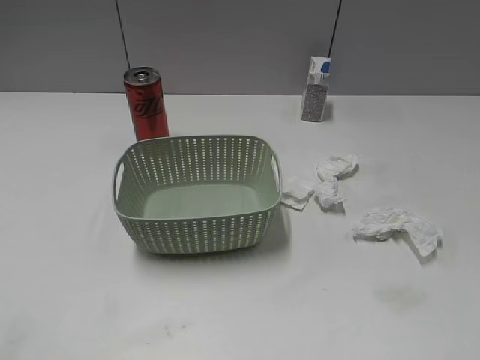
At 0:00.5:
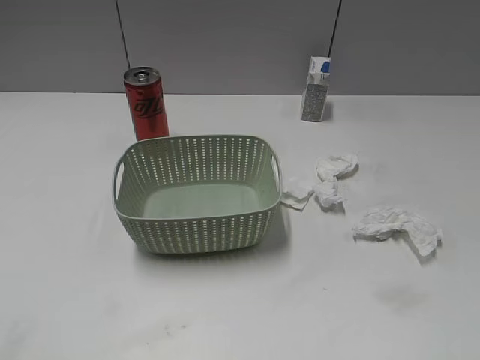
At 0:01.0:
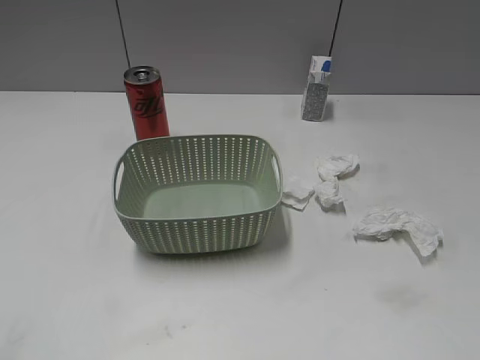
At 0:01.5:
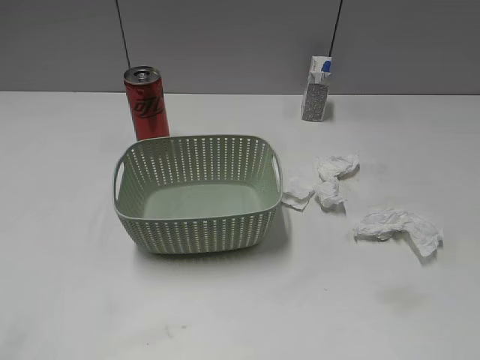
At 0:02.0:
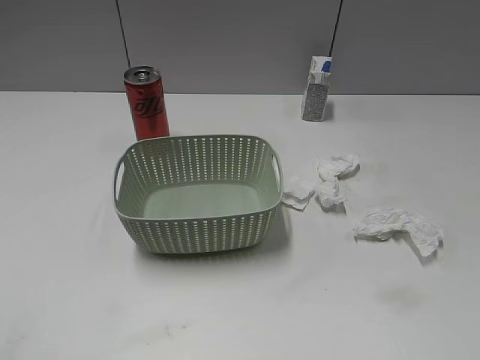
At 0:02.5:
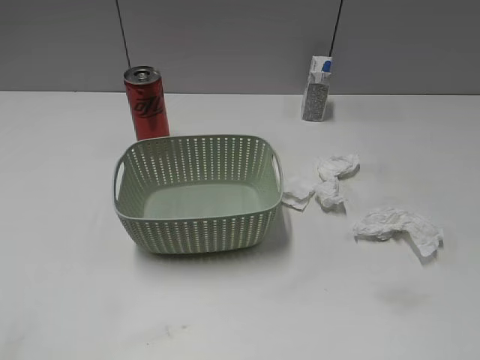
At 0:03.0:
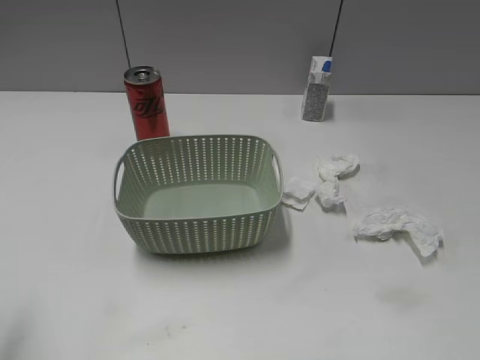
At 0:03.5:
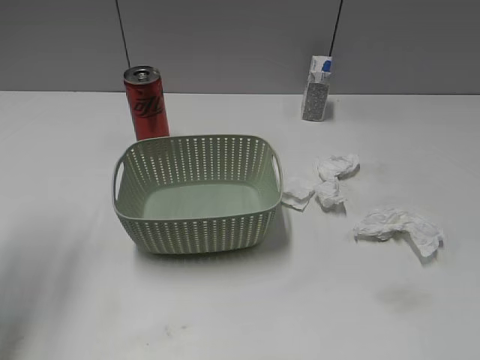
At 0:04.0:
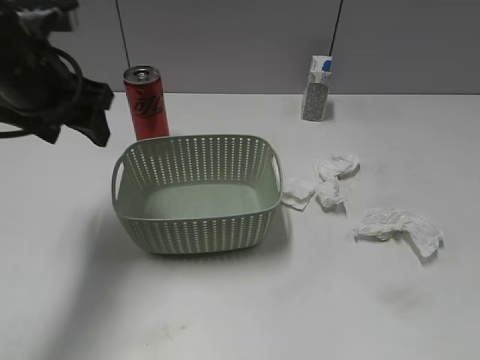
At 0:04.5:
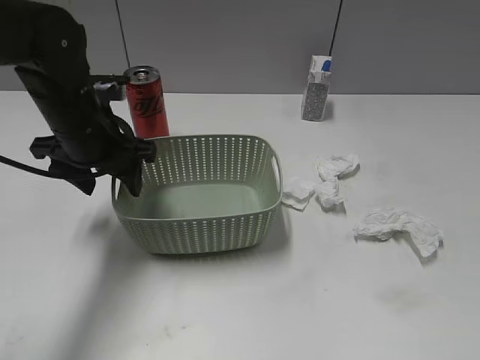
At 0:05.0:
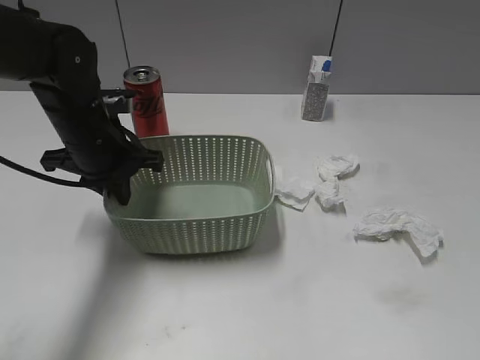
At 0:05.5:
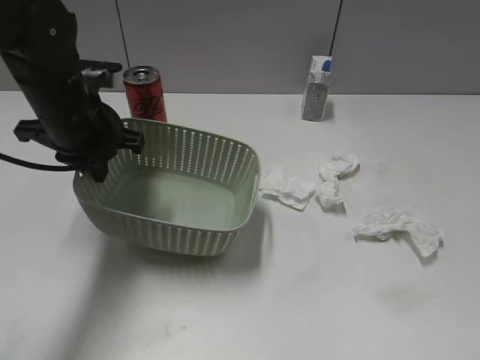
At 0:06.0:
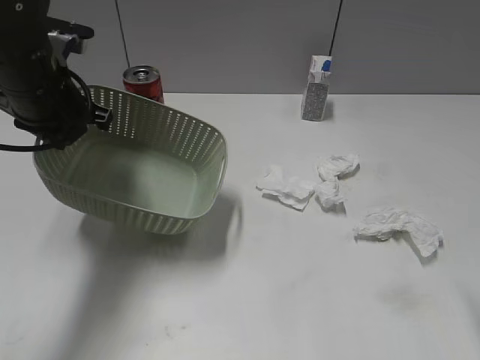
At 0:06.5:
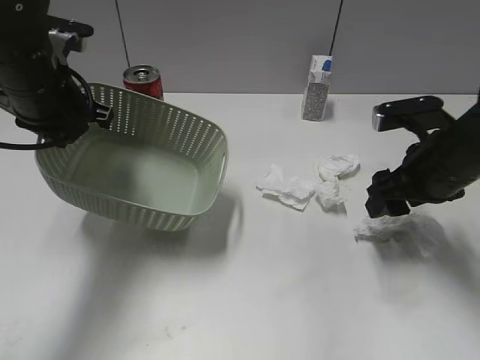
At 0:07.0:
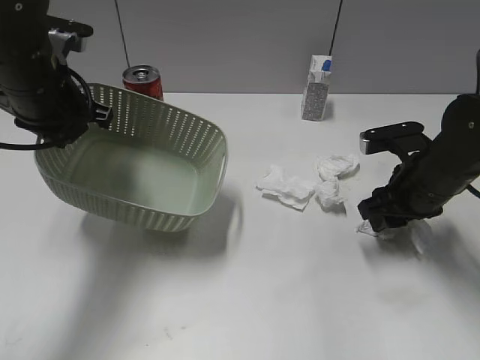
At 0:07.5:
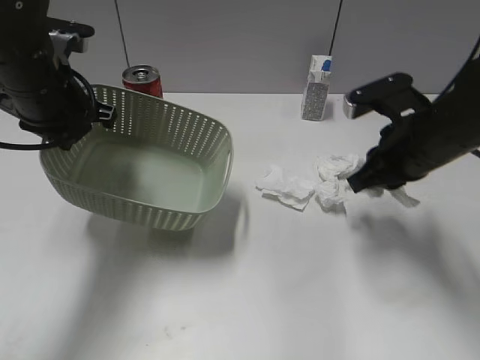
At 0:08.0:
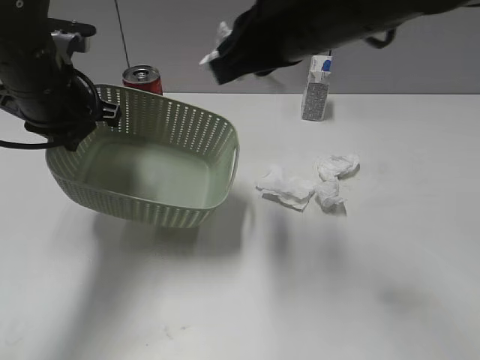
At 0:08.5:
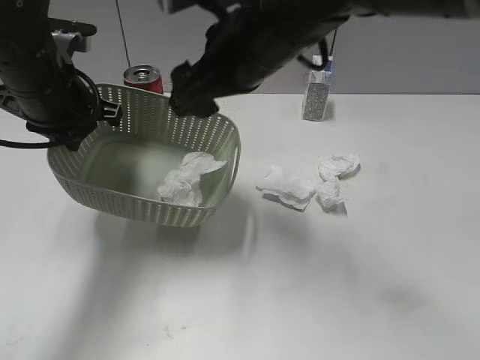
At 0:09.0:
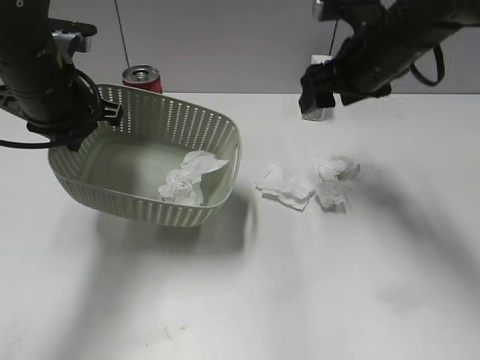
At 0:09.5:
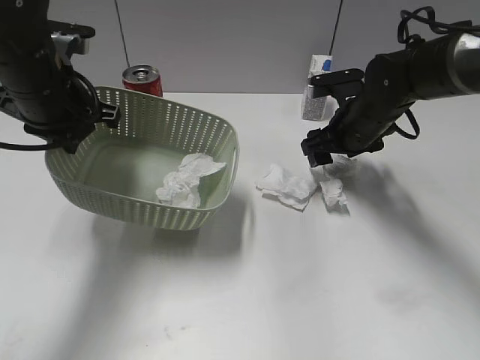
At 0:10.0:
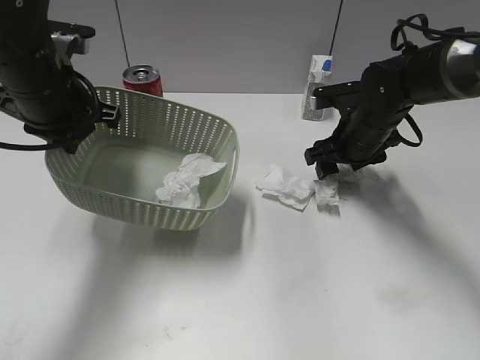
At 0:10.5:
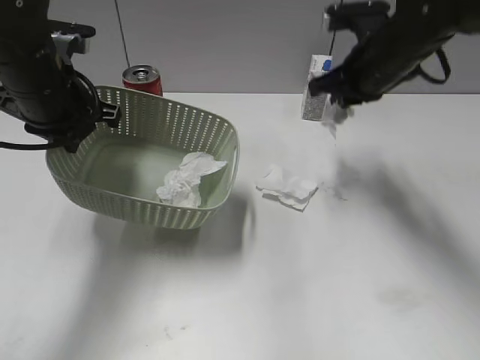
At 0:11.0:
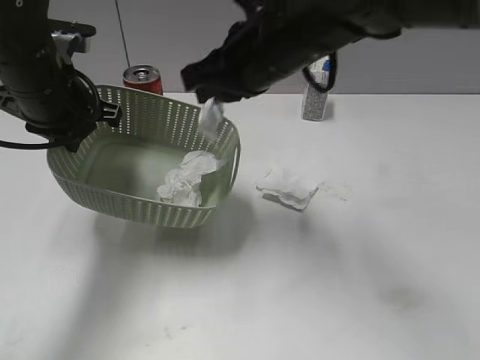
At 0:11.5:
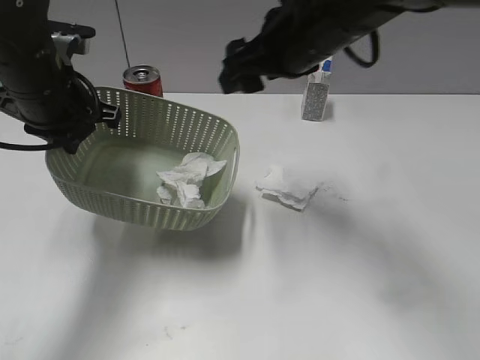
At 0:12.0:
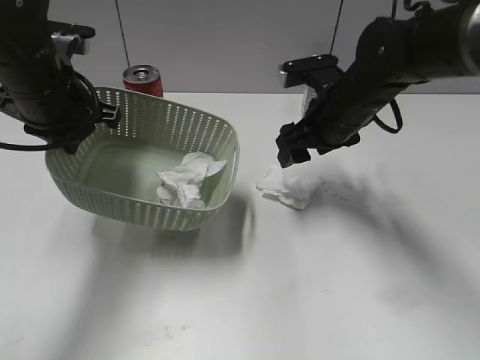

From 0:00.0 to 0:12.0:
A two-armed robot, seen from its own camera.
Step, from 0:02.0 to 0:05.0: Grasp the basket with left gripper.
Step, from 0:05.5 to 0:06.0: Lift the basket with left gripper.
Step, from 0:06.5 to 0:07.0: Grasp the waste paper with right gripper.
Step, from 0:07.5 to 0:08.5: Place the waste paper in the basket with right gripper.
Step, from 0:09.0 to 0:10.0: Grasp the waste paper with right gripper.
Step, from 0:10.5 to 0:11.0: Place the waste paper in the basket with right gripper.
From 0:02.0 to 0:04.0: The left gripper is displaced forward and to the right by roughly 35 cm.
From 0:04.0 to 0:06.0: The left gripper moves about 10 cm downward and comes back, and closes up, while the right gripper shifts about 15 cm forward.
From 0:06.0 to 0:08.0: The right gripper heads to the left and forward, covering approximately 25 cm, and closes its fingers.
From 0:08.0 to 0:10.0: The right gripper heads downward, to the right and forward, covering approximately 25 cm, and opens its fingers.
From 0:10.0 to 0:12.0: The right gripper moves about 15 cm upward and comes back, and closes, then reopens.

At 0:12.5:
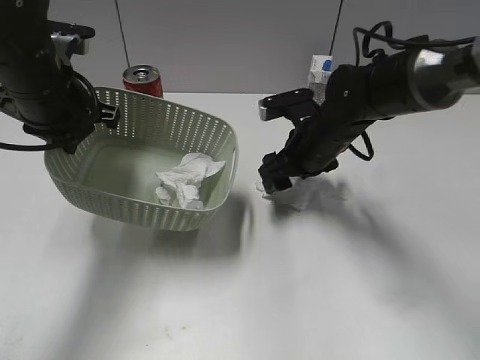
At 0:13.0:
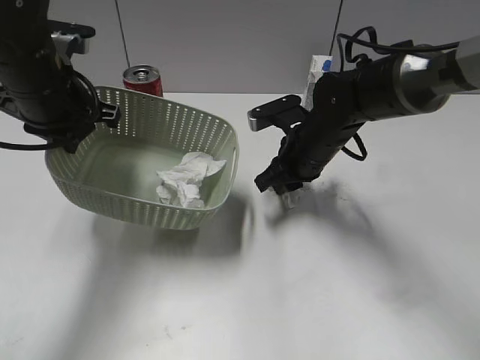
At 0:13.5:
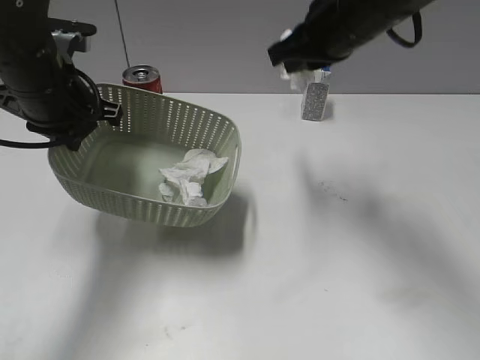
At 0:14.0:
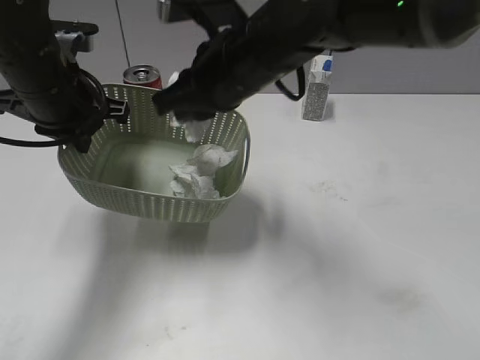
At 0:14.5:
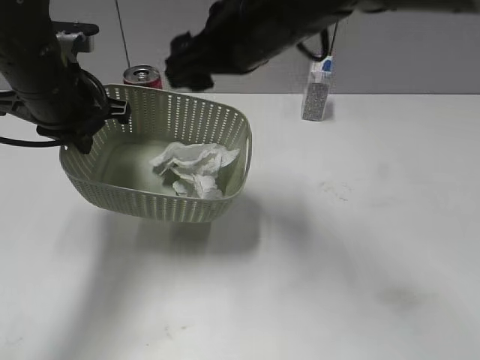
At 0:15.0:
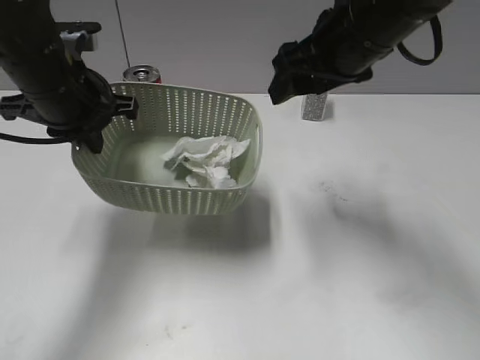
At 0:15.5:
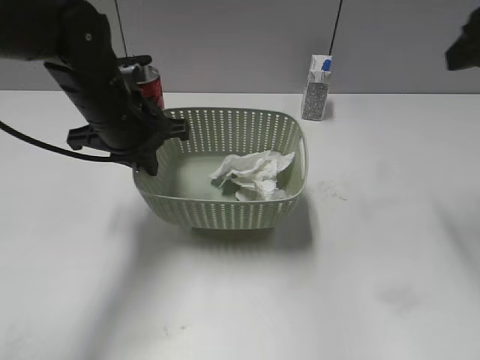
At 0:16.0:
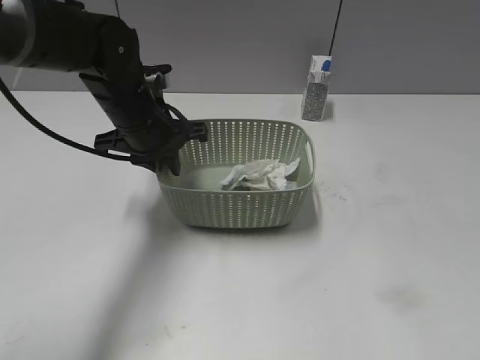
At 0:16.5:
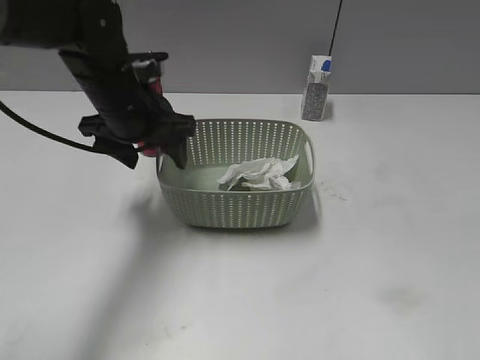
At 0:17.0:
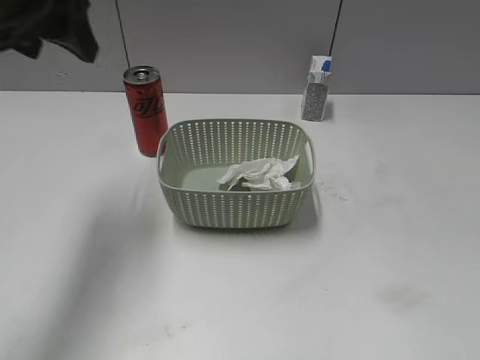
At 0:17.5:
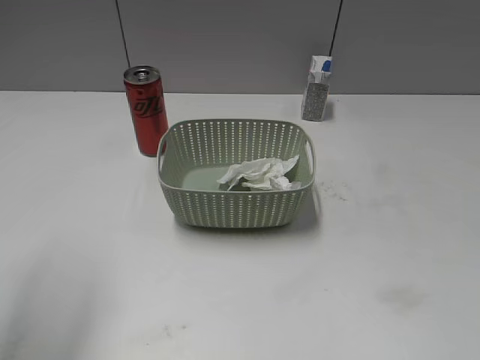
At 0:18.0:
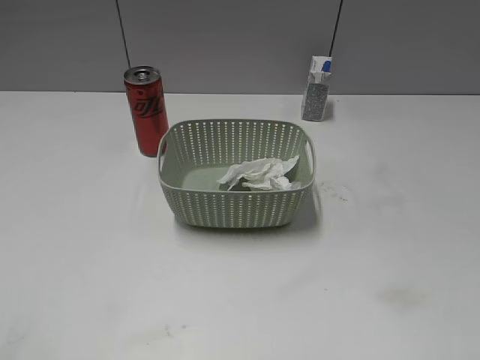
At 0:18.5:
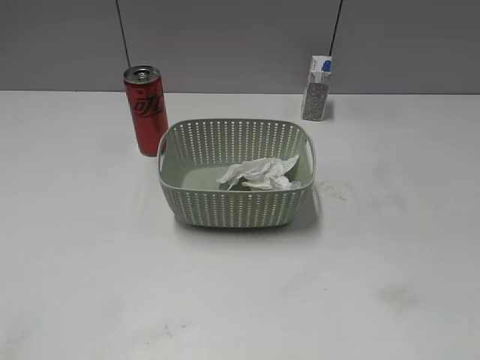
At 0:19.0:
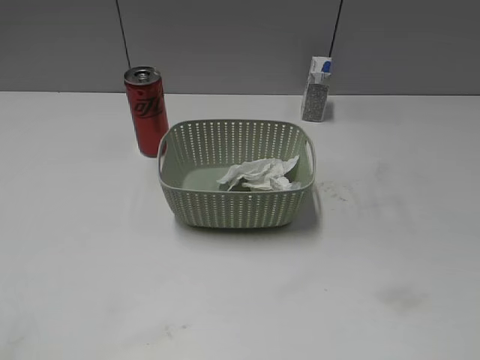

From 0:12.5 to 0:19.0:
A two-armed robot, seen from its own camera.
Step, from 0:13.5 to 0:14.5: Place the waste paper in the basket with right gripper.
Step, from 0:15.0 to 0:16.5: Place the basket on the table with left gripper.
From 0:12.5 to 0:14.5: The right gripper goes up and down, approximately 20 cm each way, reversing 2 times, and closes, then reopens.
From 0:14.5 to 0:17.0: The right gripper heads backward and to the right, covering approximately 40 cm. The left gripper is displaced upward by roughly 10 cm, and opens its fingers.
From 0:17.0 to 0:19.0: The left gripper shifts some 30 cm backward.
